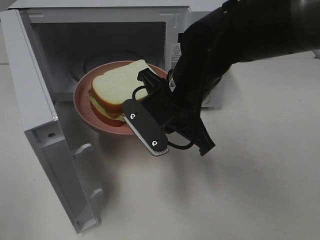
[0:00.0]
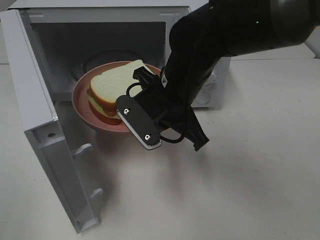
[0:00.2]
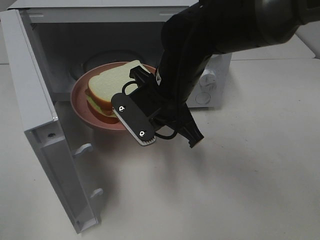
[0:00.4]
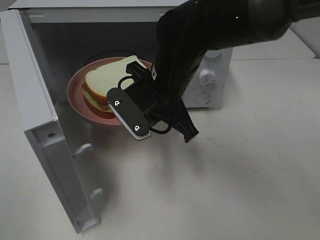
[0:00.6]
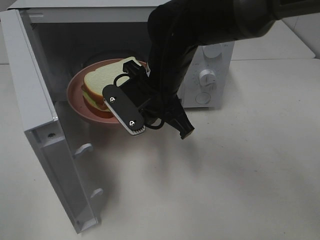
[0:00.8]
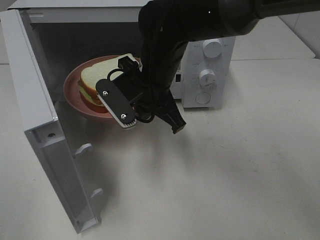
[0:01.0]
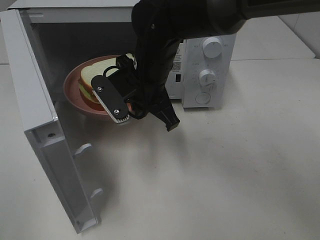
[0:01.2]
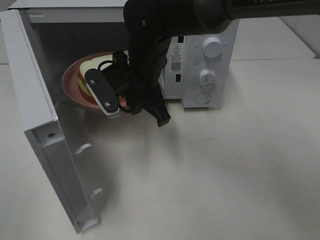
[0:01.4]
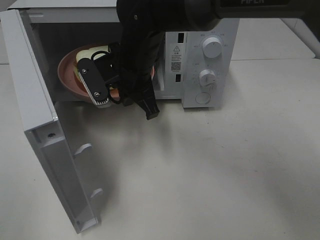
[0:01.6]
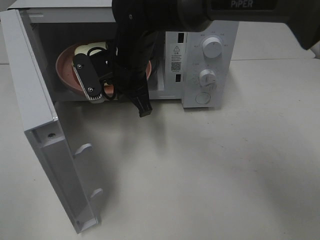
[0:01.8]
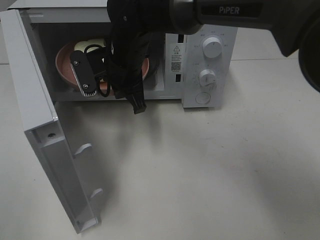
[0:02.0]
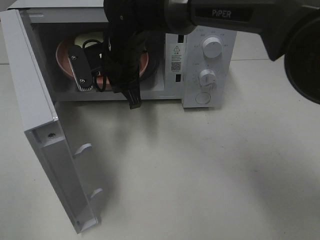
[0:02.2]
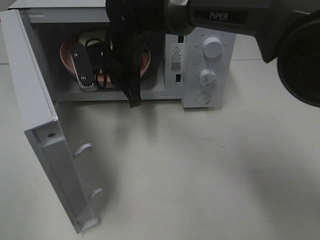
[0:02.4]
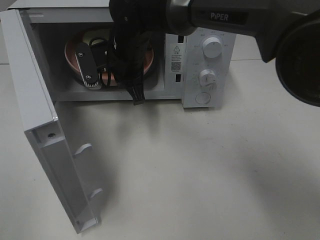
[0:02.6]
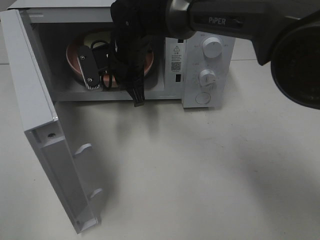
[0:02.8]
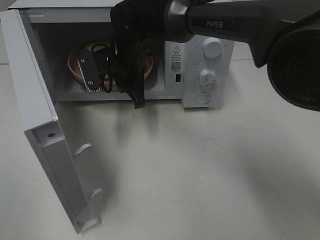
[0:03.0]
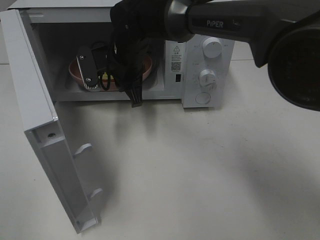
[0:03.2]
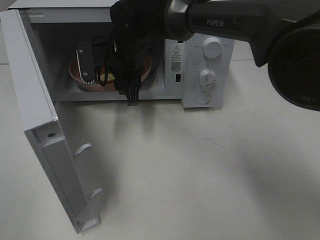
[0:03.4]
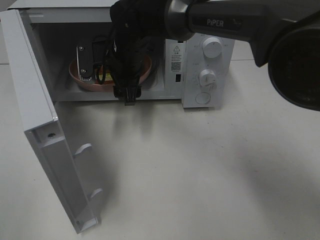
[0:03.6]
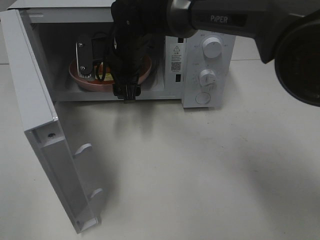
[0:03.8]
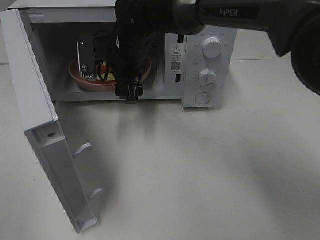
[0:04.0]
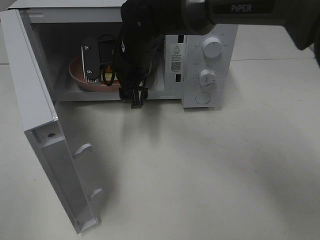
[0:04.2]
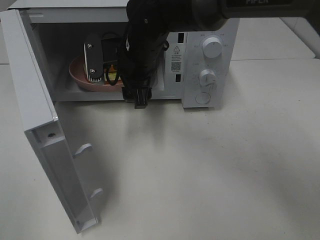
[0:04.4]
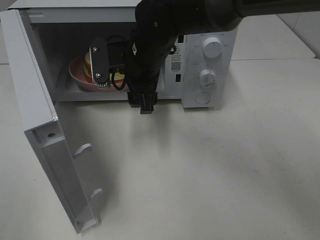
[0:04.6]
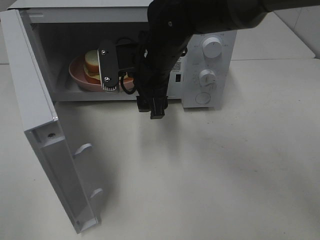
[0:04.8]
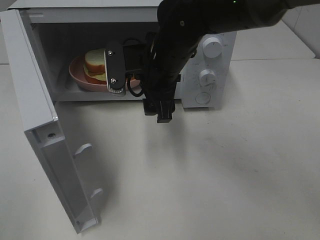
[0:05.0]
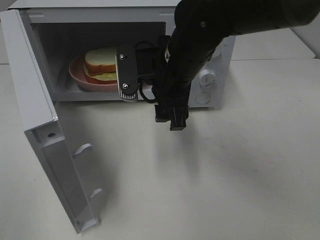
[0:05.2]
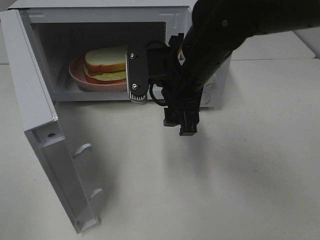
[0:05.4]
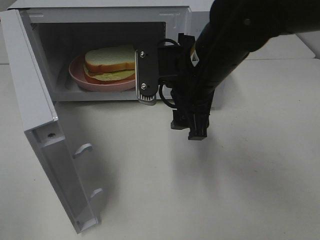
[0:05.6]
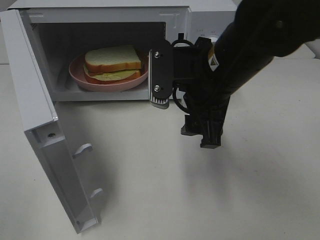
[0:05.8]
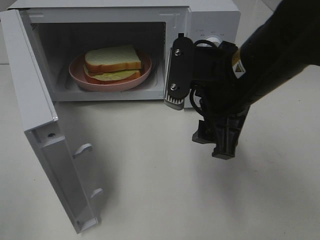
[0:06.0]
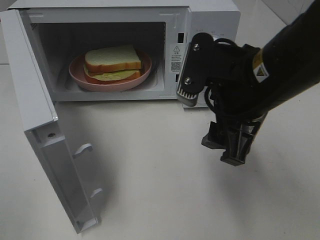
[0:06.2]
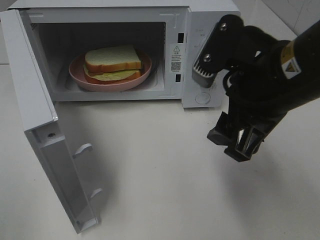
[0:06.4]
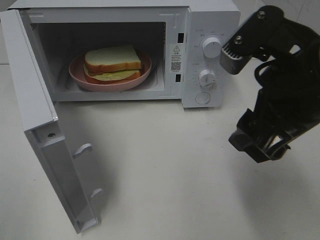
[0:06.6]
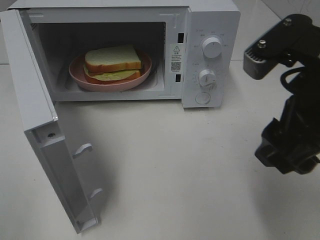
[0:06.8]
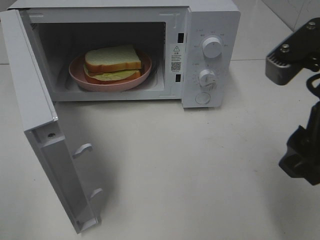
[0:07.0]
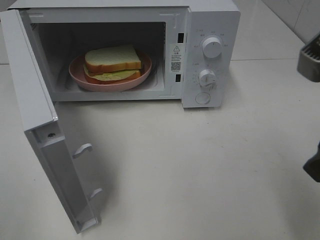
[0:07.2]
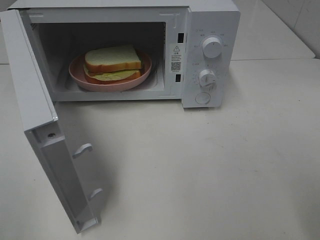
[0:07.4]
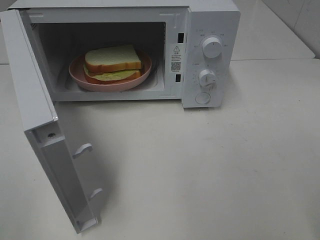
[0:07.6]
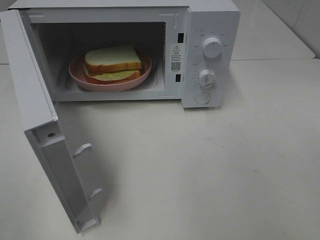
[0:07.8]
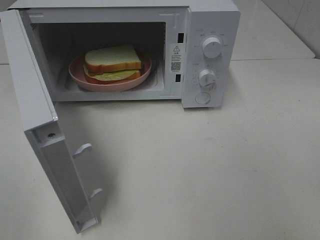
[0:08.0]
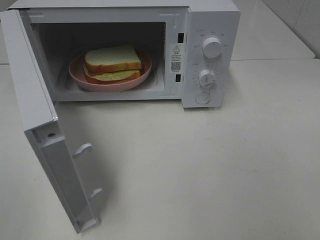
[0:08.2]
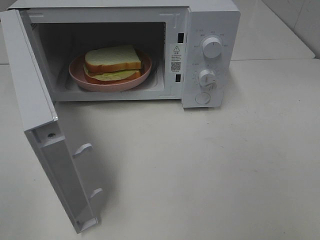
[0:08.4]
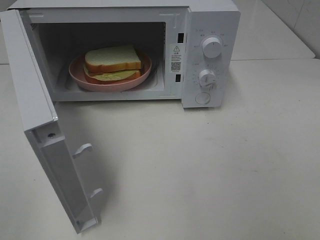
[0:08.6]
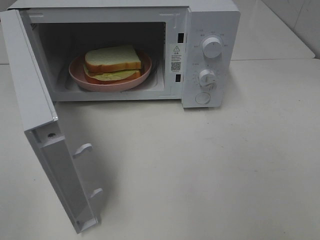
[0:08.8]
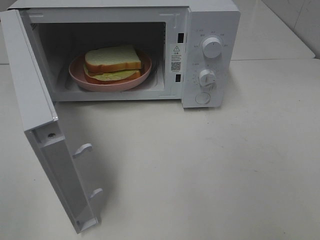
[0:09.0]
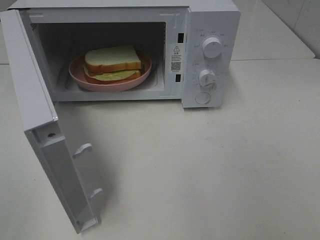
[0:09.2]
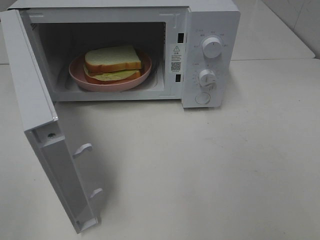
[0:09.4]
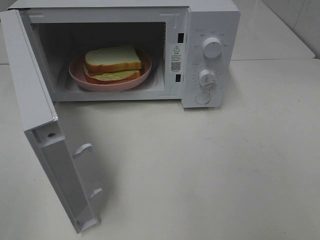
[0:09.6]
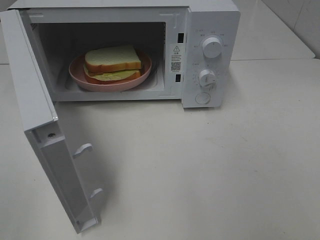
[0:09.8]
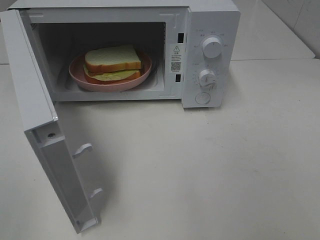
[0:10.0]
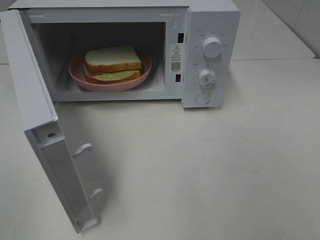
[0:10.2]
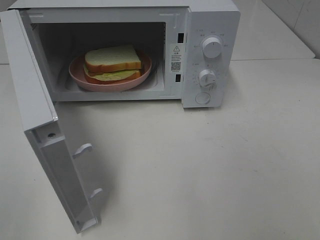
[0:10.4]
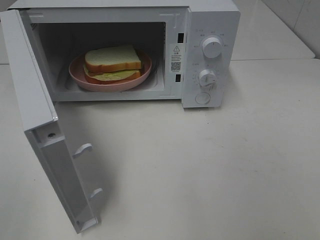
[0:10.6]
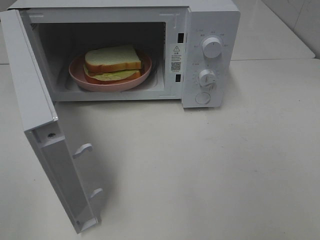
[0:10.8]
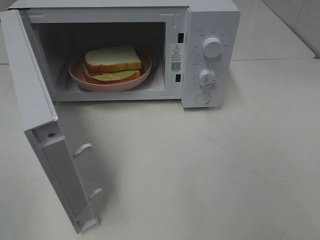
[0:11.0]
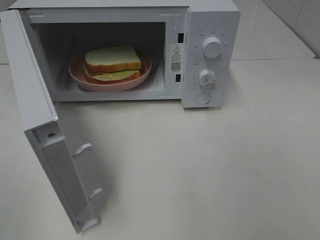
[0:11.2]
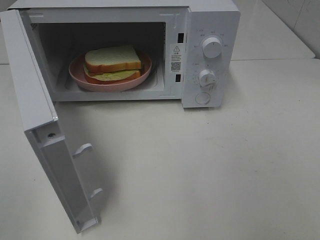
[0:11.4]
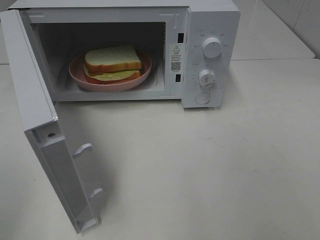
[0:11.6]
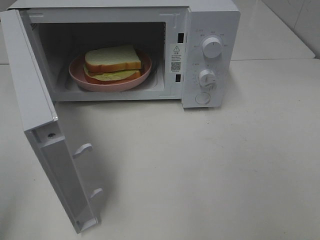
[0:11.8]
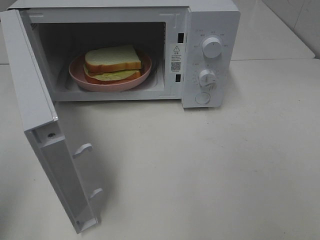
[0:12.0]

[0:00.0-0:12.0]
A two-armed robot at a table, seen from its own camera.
Task of the whole recording: Heat Sandwich.
Step, 0:00.0 to 0:03.4: Right hand: place the plate in the microwave.
0:00.0 to 0:01.6: The right gripper heads forward and to the left, covering some 10 cm.
0:01.6 to 0:03.0: The right gripper travels forward by some 5 cm.
0:03.0 to 0:04.4: The right gripper opens up.
0:04.4 to 0:06.0: The right gripper goes approximately 20 cm backward and to the right.
0:06.0 to 0:07.6: The right gripper goes about 20 cm backward, to the right and upward.

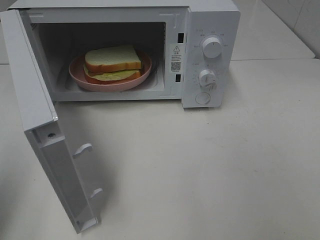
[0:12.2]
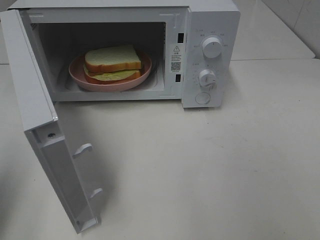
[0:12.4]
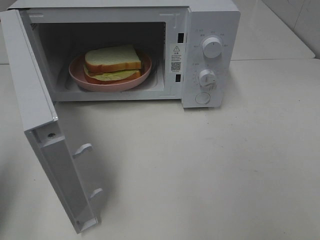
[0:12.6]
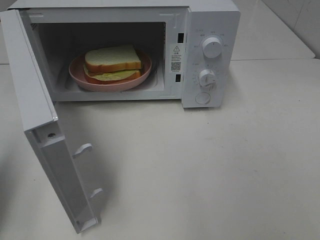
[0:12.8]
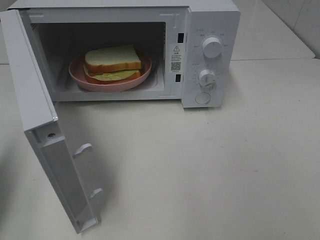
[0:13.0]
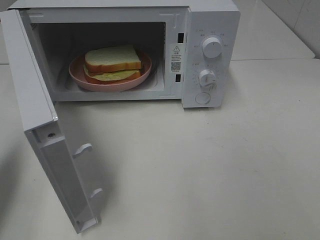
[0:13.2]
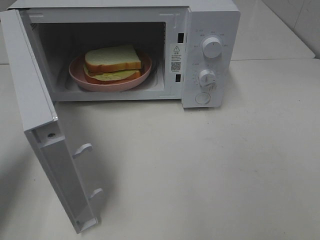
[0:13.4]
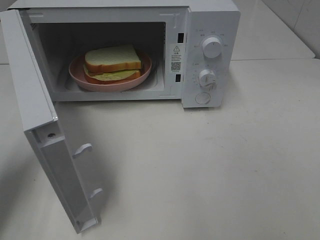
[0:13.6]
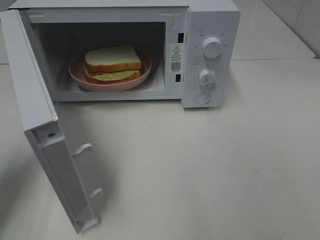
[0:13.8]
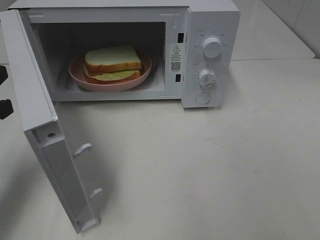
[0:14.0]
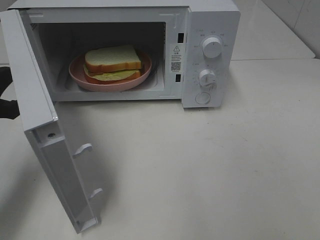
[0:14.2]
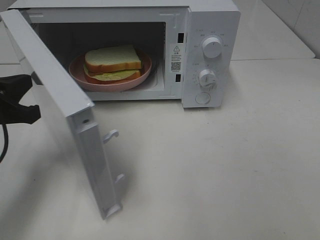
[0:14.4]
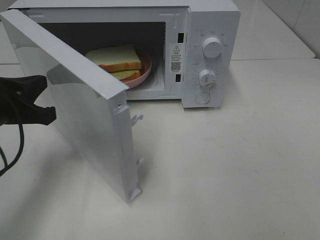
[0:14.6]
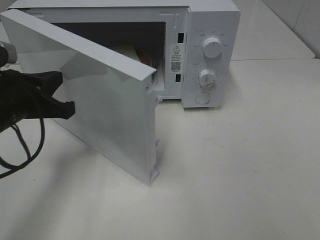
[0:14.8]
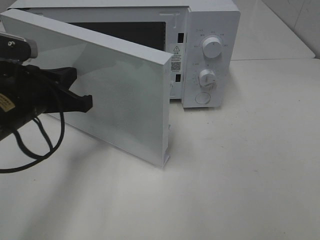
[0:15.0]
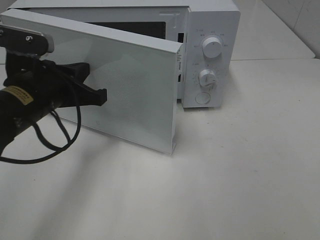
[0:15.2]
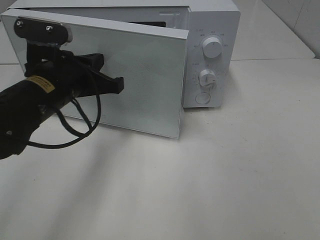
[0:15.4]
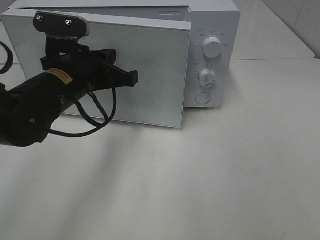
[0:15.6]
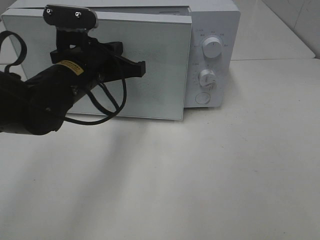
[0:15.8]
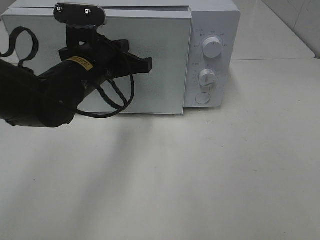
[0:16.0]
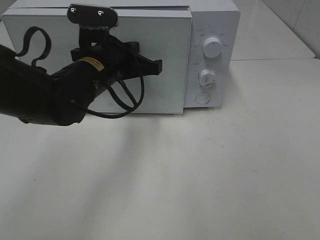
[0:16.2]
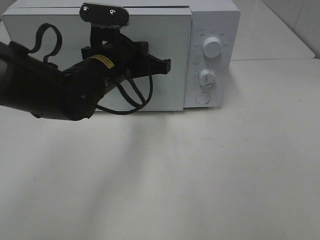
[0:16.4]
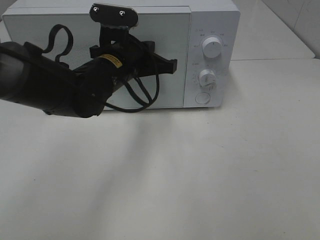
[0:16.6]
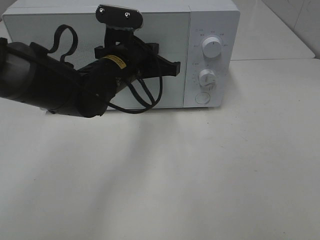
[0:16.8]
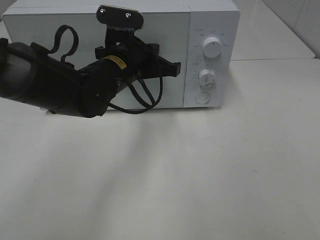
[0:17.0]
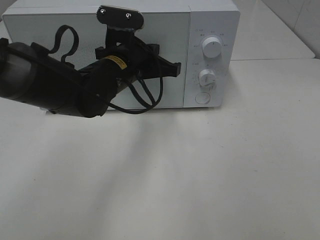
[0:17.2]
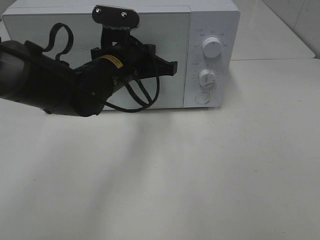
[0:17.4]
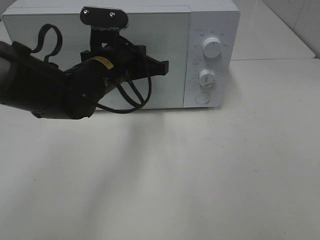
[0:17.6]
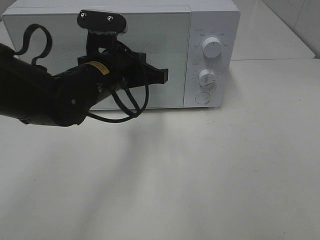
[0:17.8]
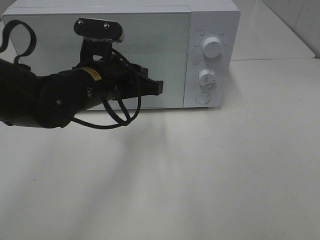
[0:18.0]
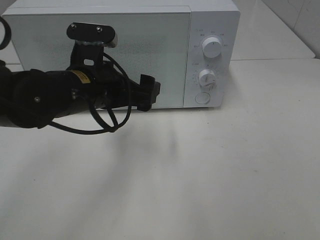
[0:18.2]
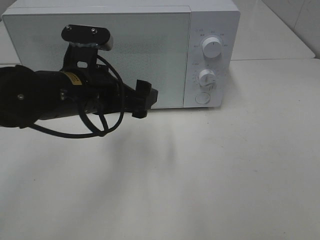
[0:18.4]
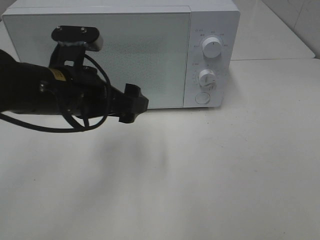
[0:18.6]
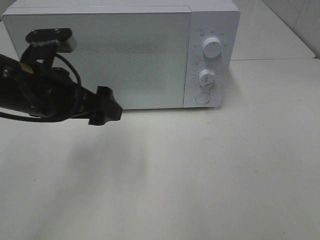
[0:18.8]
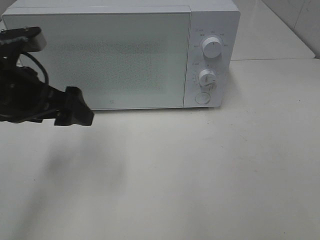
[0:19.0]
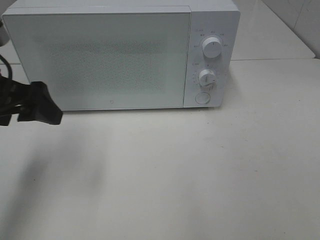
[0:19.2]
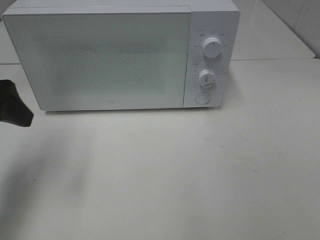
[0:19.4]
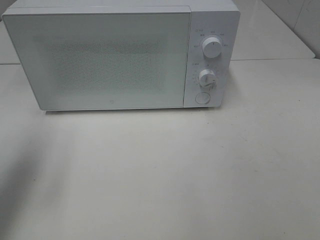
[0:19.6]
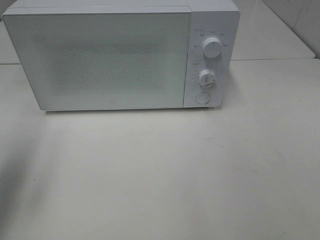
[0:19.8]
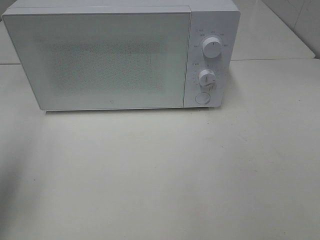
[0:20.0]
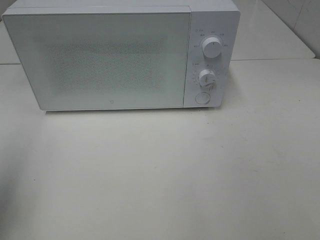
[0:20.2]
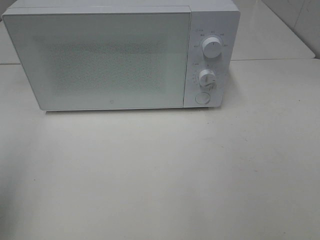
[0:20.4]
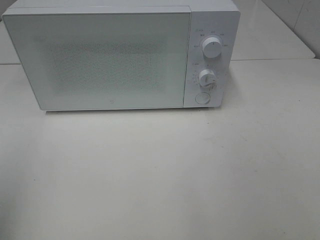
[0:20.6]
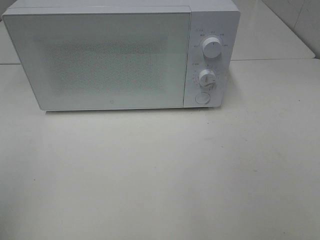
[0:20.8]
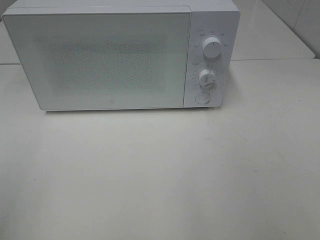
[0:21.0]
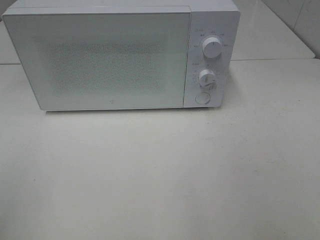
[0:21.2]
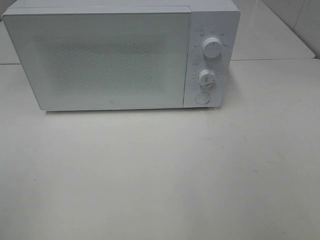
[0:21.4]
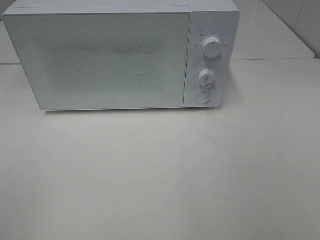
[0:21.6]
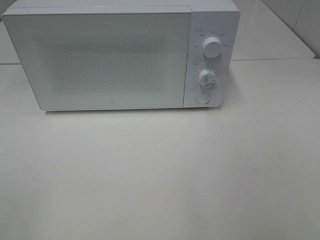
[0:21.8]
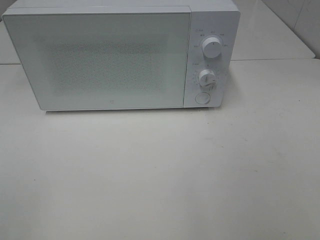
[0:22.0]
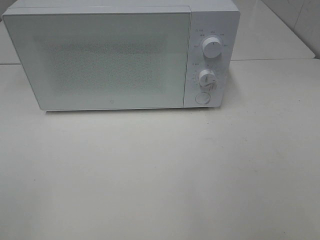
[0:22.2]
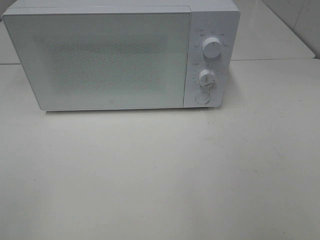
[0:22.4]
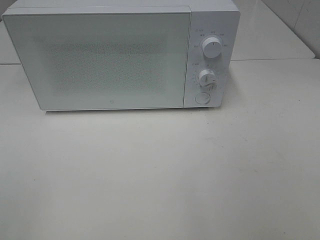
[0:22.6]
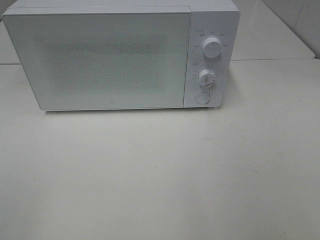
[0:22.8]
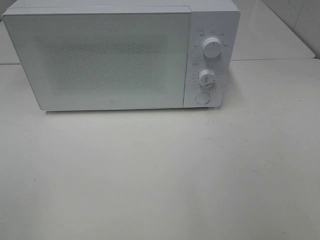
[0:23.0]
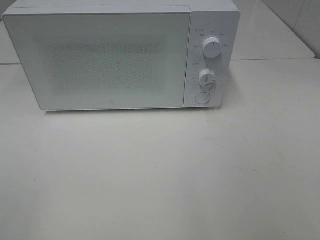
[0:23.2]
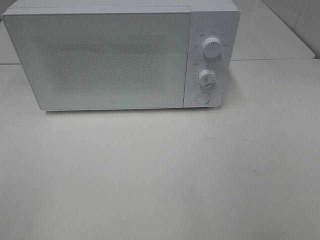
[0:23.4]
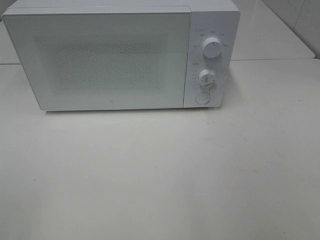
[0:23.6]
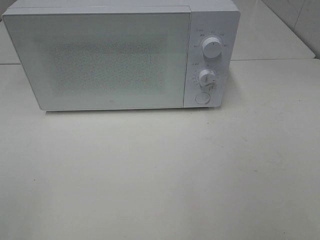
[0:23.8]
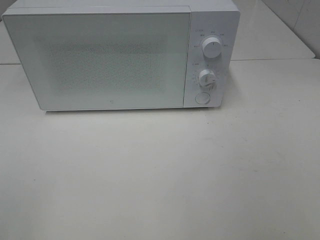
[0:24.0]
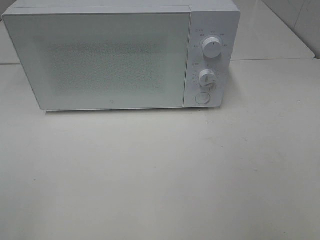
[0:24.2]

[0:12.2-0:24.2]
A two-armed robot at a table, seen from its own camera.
Task of the whole recording: Heat Sandwich.
Step, 0:12.2 to 0:17.6: Left hand: close the microwave door.
0:12.2 to 0:13.8: The left gripper shifts some 15 cm forward and downward.
0:13.8 to 0:15.2: The left gripper is displaced to the right by some 15 cm.
0:15.2 to 0:16.6: The left gripper goes approximately 15 cm to the right and forward.
0:16.6 to 0:18.2: The left gripper goes some 5 cm backward, and opens.
0:18.2 to 0:19.8: The left gripper heads to the left, covering roughly 20 cm.
0:19.8 to 0:21.2: The left gripper goes about 15 cm backward.
